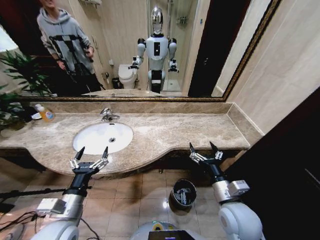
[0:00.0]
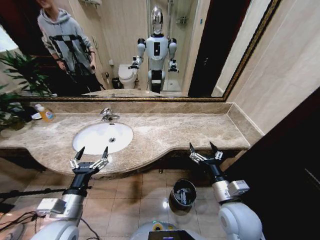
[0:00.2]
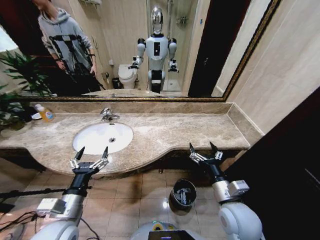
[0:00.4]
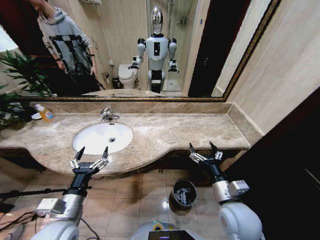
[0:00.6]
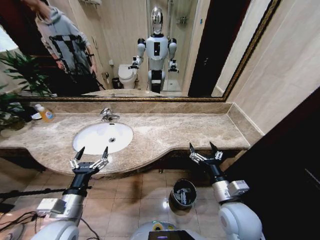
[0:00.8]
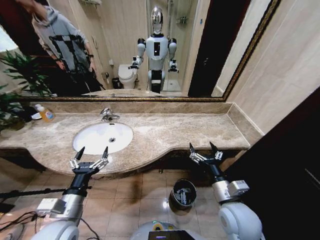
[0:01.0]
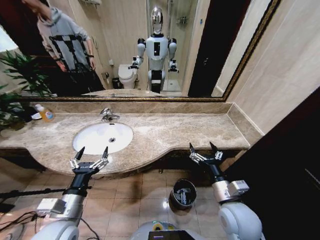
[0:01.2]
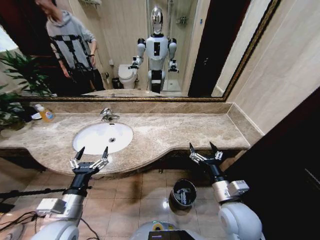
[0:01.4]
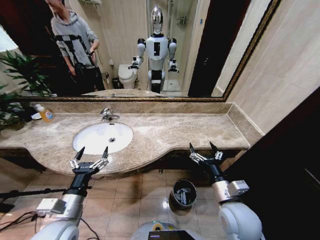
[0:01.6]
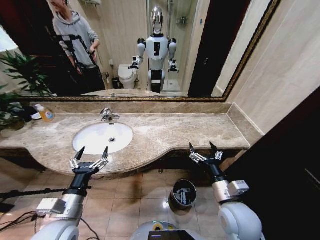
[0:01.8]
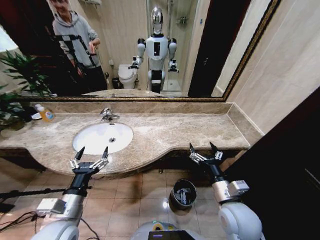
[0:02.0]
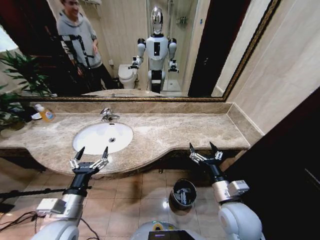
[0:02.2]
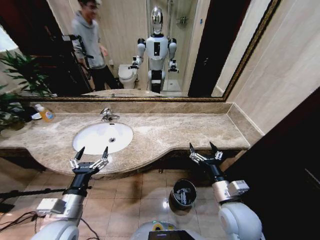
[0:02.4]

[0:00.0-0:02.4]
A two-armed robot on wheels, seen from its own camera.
Task of the whole recording: Pick up the trash from the sink and place it in the trash bin.
0:00.0 to 0:02.4: Neither gripper changes place.

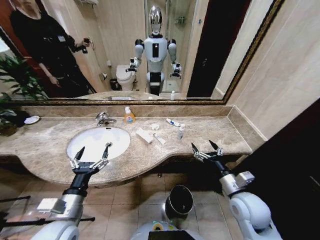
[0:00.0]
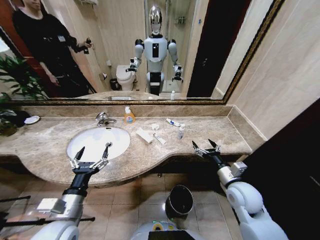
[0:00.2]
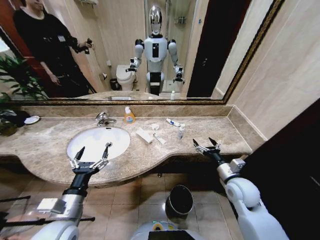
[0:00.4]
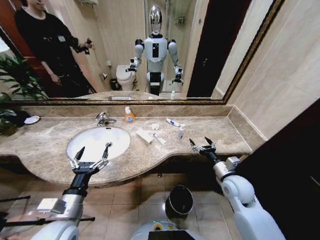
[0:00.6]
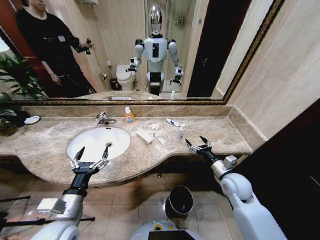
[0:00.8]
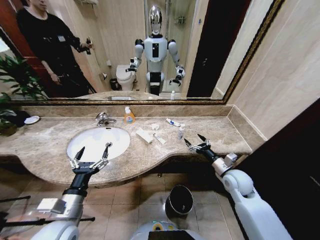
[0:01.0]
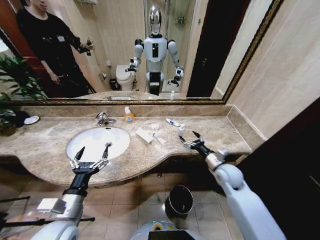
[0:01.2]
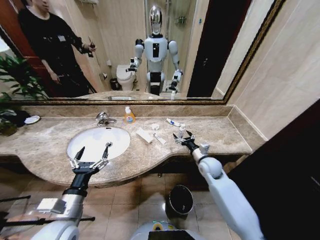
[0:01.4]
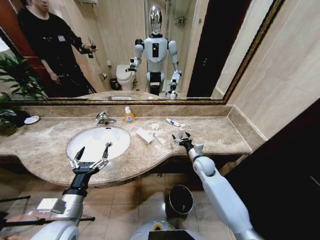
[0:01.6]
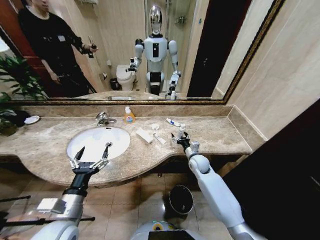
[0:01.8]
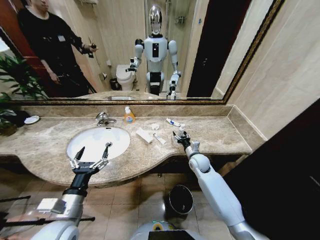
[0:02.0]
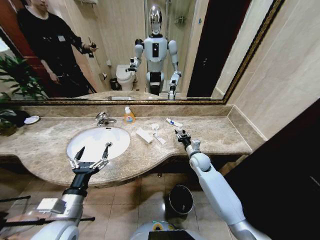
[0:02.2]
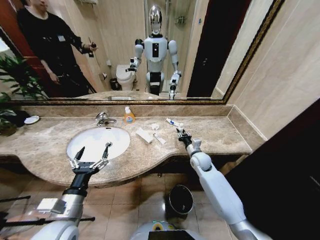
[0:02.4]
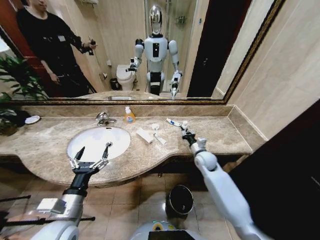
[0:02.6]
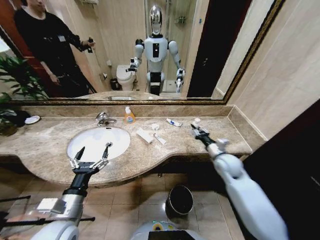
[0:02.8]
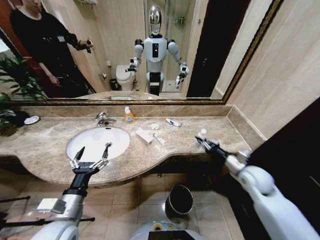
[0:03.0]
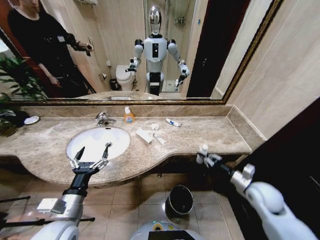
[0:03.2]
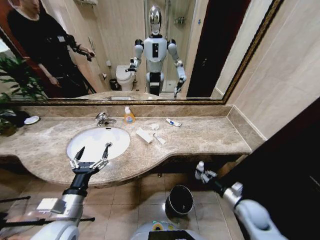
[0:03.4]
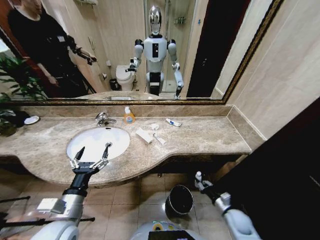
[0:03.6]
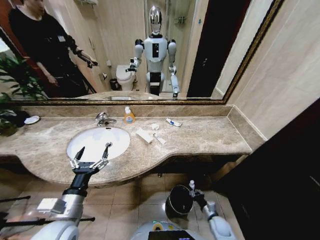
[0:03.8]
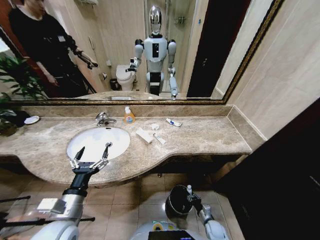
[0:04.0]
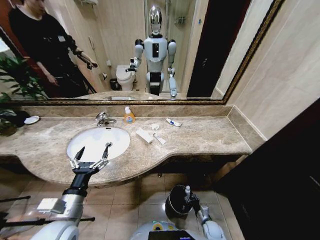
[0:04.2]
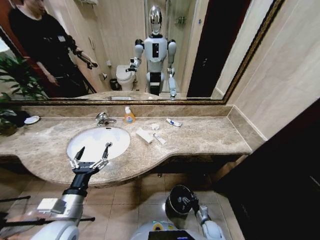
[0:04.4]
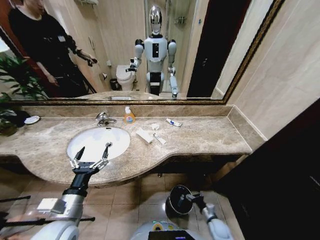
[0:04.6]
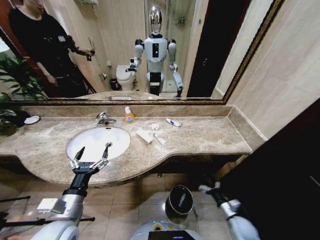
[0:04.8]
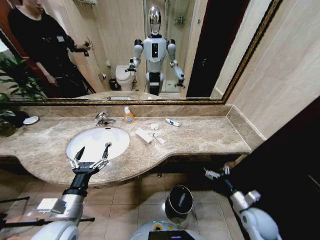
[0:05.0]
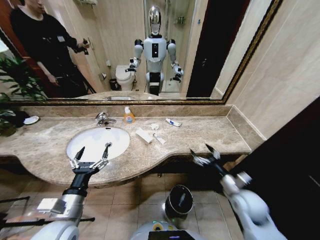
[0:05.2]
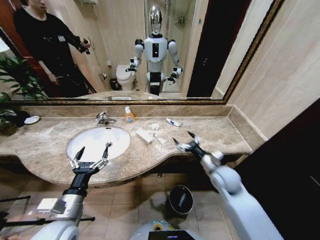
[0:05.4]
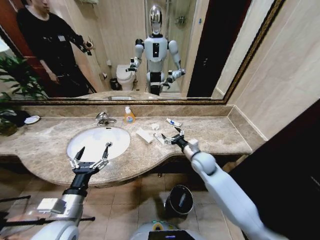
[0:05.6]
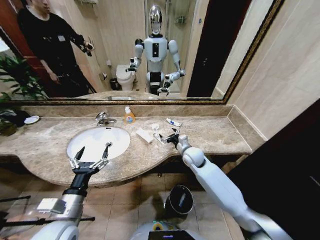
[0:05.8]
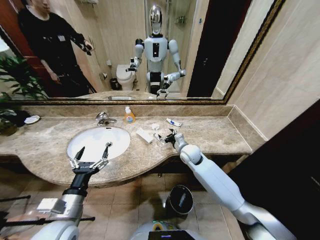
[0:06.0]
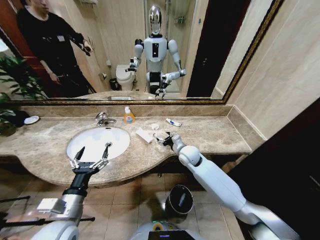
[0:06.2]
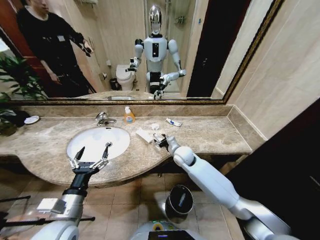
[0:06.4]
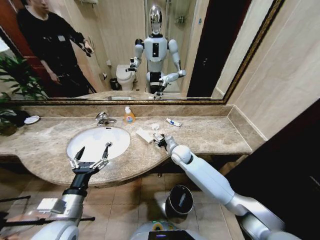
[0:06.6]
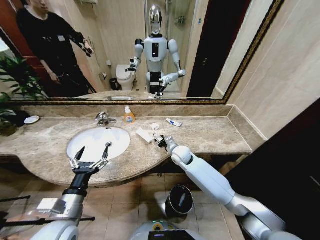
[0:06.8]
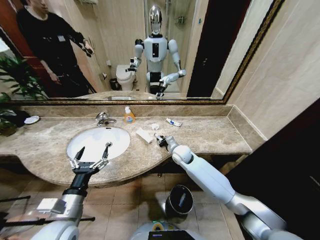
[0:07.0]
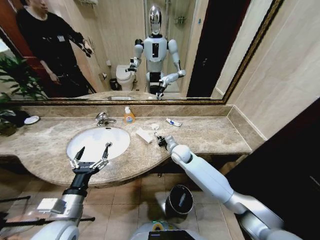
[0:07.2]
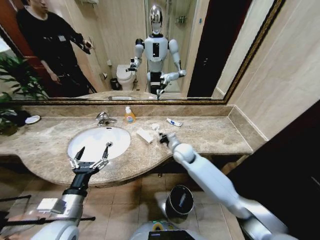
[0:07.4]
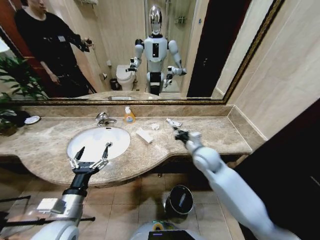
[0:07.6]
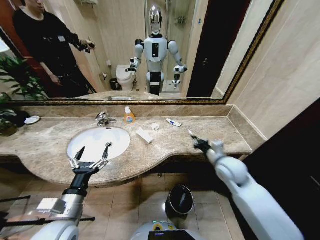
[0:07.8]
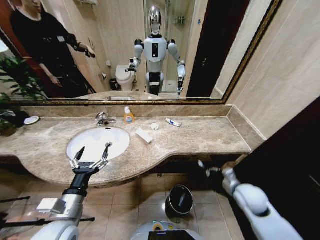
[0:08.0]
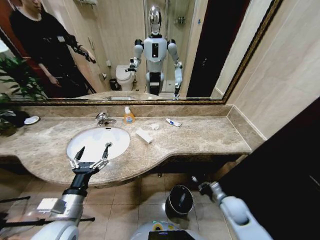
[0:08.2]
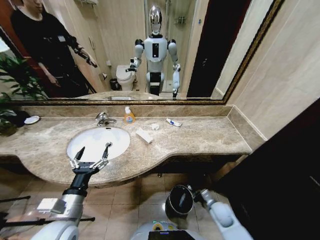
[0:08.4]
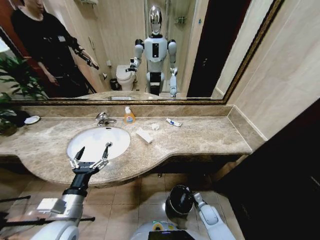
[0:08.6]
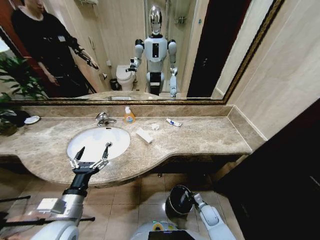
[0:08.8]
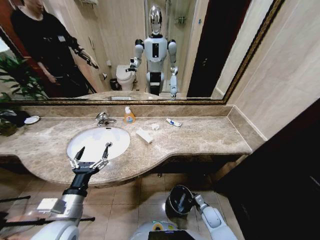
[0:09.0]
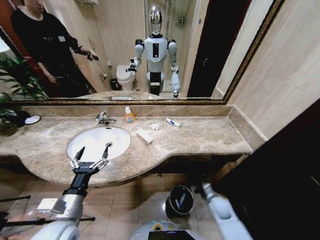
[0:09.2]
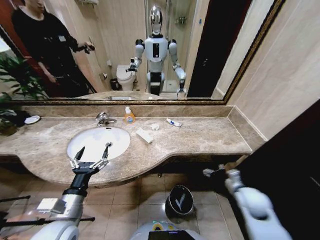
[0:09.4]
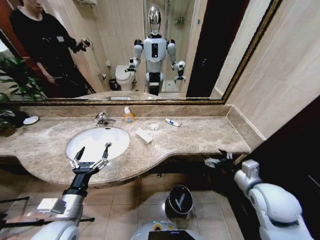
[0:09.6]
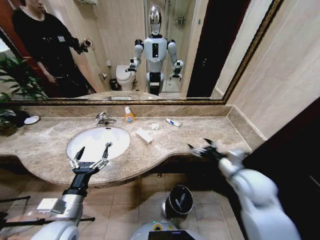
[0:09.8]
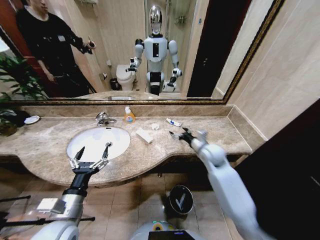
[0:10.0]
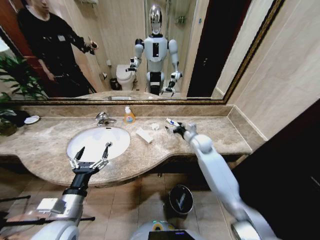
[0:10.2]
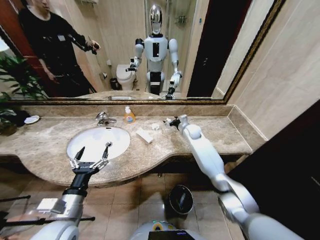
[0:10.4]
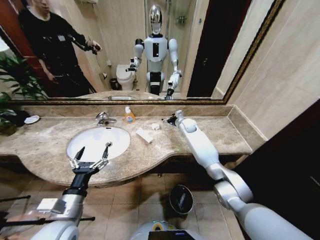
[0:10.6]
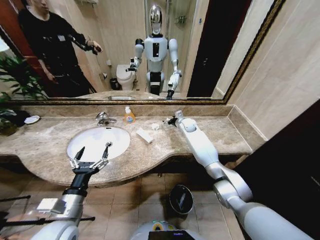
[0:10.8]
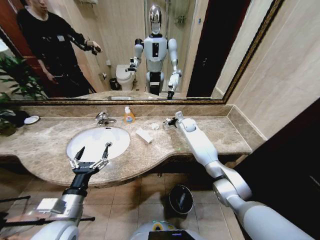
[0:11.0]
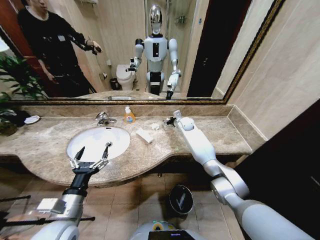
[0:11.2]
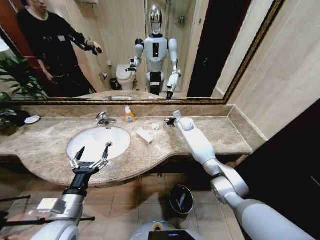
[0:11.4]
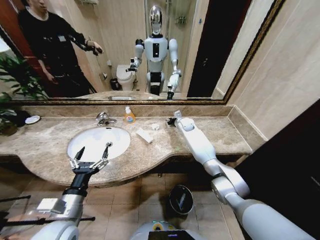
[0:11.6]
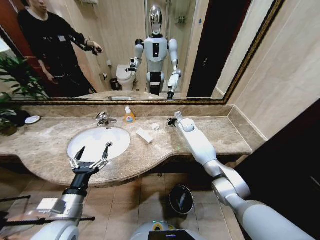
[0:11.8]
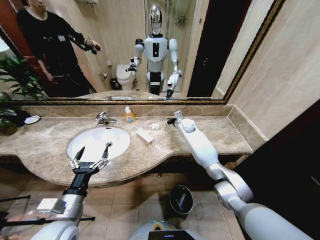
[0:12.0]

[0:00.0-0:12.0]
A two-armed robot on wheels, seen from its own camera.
Task of the whole recording: Pick up the trash from the sink and place it in the trash bin.
0:01.6 to 0:03.0: The right gripper is displaced to the right, backward and upward by some 20 cm, and closes its fingers.
0:03.0 to 0:04.4: The right gripper travels downward by some 40 cm, and opens.
0:04.4 to 0:06.0: The right gripper goes some 40 cm upward and forward.
0:06.0 to 0:07.6: The right gripper heads upward and backward, covering approximately 10 cm, and closes its fingers.
0:07.6 to 0:09.0: The right gripper travels downward and backward by some 40 cm.
0:09.0 to 0:10.4: The right gripper travels forward and upward by about 50 cm, and opens up.
0:10.4 to 0:12.0: The right gripper closes up.

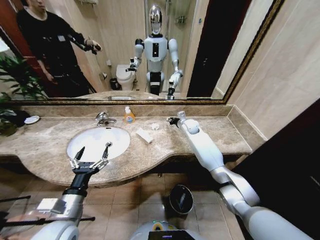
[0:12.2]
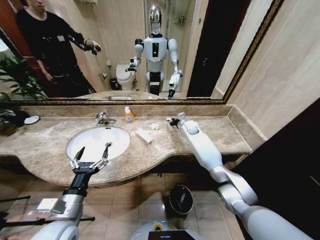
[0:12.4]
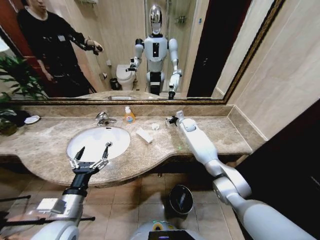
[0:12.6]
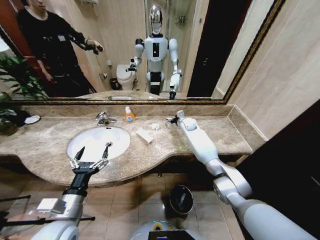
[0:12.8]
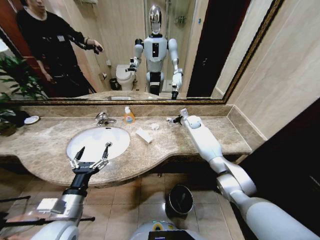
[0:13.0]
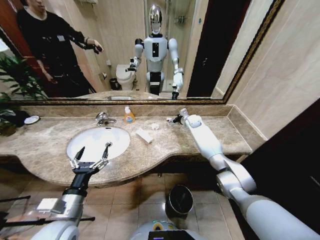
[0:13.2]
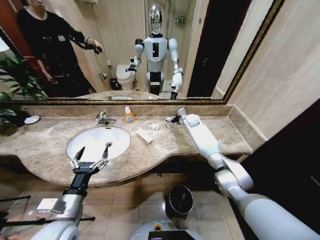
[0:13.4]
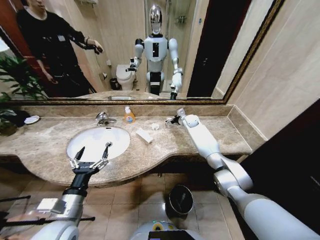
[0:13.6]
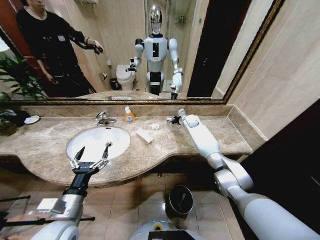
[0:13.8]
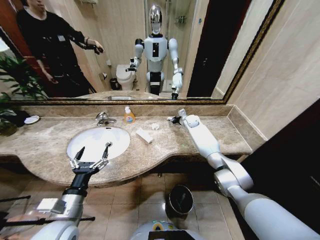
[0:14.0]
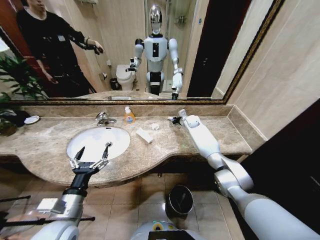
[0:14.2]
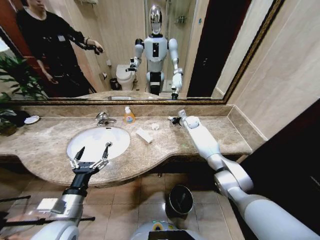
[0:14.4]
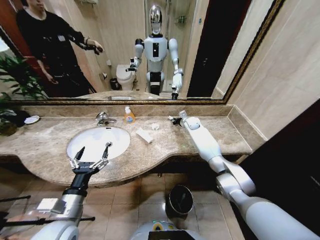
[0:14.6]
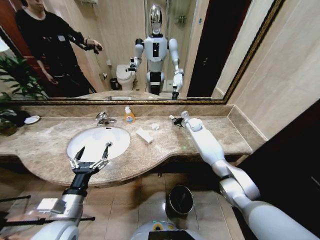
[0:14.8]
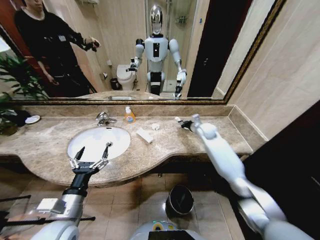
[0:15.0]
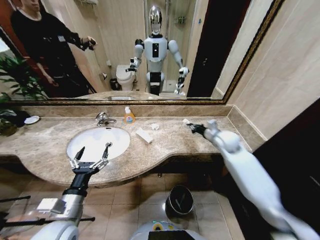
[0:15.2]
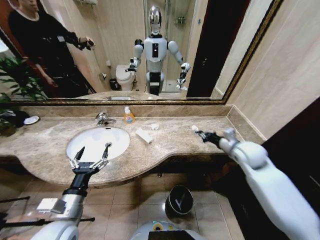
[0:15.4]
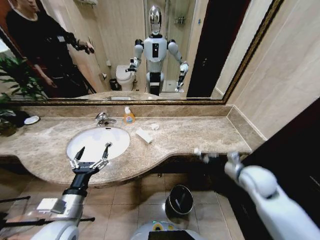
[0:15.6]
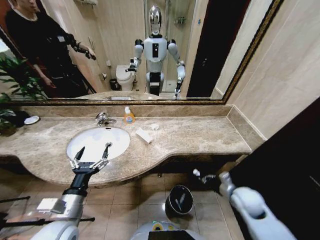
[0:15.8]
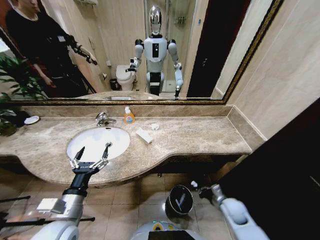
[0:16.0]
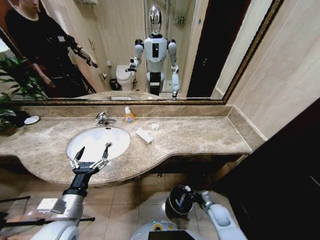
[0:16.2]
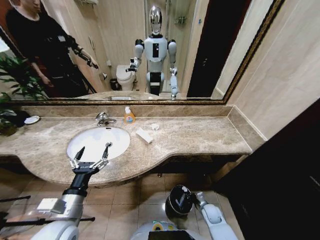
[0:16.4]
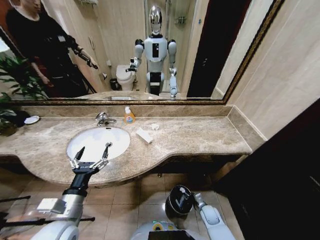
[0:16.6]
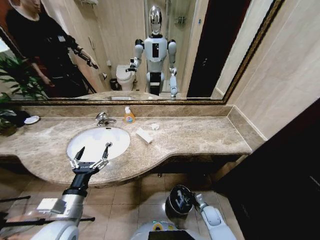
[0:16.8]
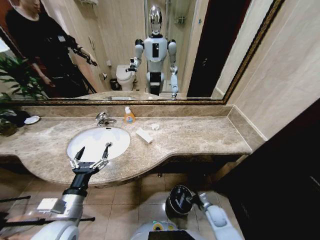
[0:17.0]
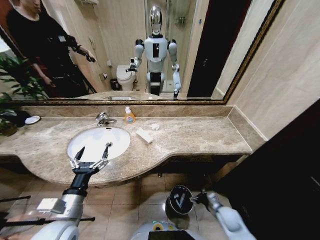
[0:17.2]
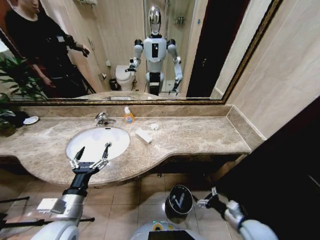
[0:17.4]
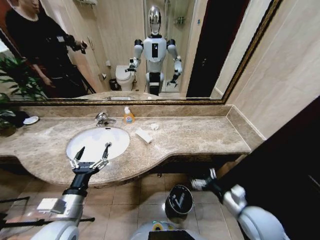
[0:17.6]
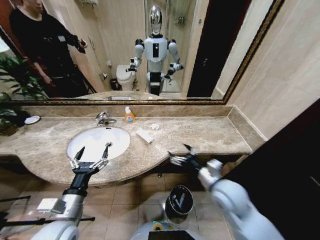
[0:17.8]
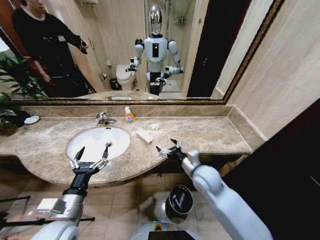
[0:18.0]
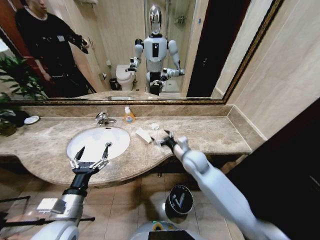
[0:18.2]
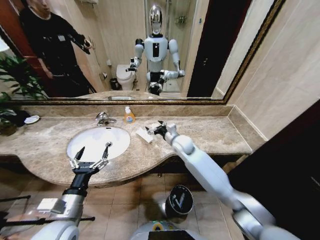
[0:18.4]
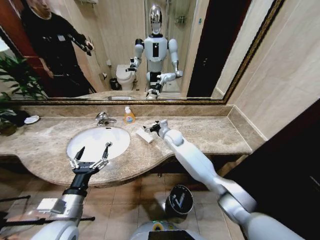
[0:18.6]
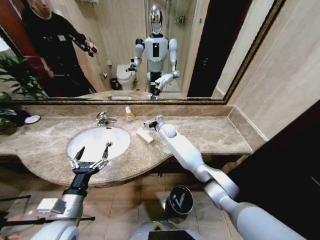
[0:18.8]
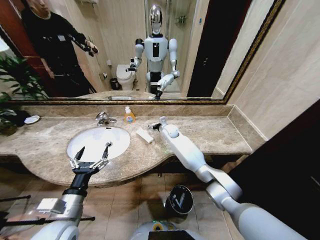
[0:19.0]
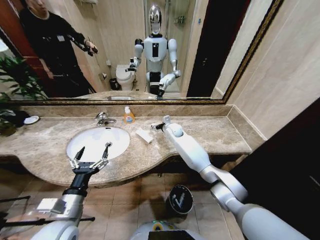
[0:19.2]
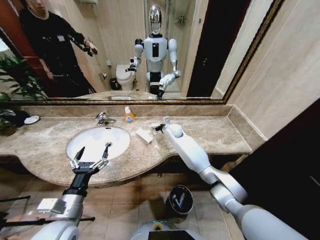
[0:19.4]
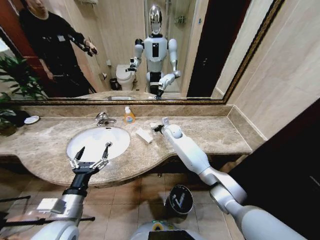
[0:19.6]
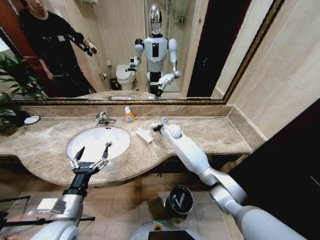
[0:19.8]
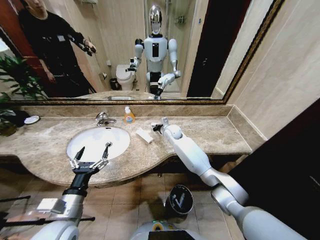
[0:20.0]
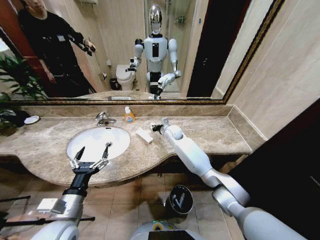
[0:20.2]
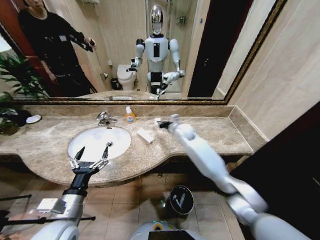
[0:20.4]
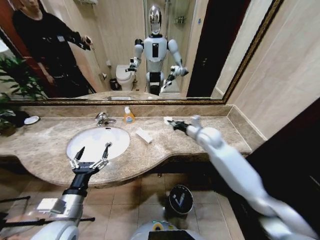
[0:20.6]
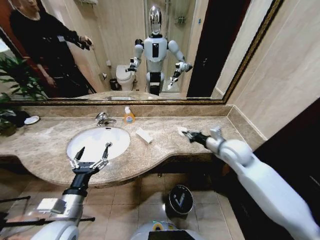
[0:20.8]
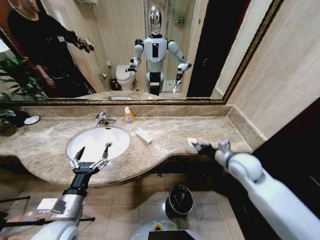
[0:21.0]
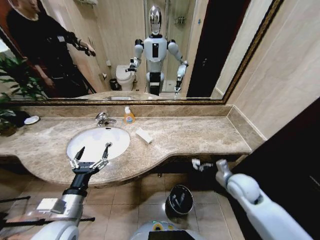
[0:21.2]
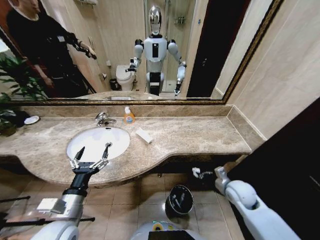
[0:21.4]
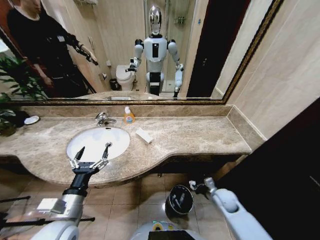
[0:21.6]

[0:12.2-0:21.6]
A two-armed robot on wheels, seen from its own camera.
Task of the whole recording: Pick up the trash from the sink and place it in the trash bin.
0:12.2 to 0:13.8: The right gripper travels forward by roughly 5 cm, and opens.
0:13.8 to 0:15.4: The right gripper moves backward and to the right, some 35 cm, and closes.
0:15.4 to 0:17.0: The right gripper shifts roughly 35 cm downward, and opens up.
0:17.0 to 0:18.4: The right gripper is displaced upward, forward and to the left by about 40 cm.
0:18.4 to 0:20.0: The right gripper shifts approximately 10 cm forward, and closes its fingers.
0:20.0 to 0:21.6: The right gripper shifts approximately 40 cm backward, to the right and downward.
